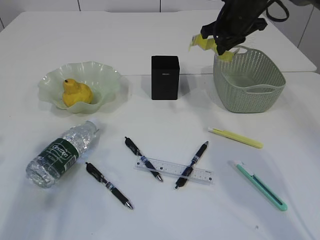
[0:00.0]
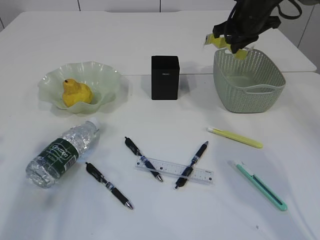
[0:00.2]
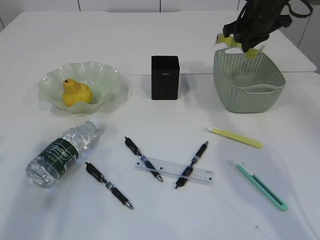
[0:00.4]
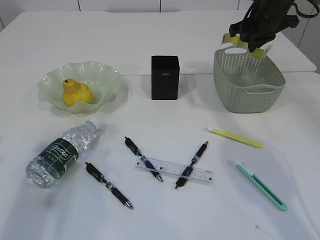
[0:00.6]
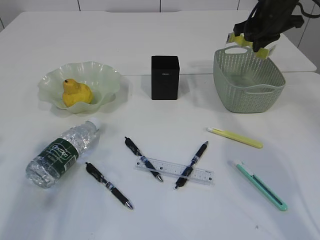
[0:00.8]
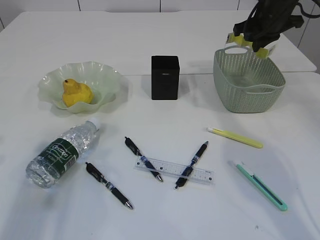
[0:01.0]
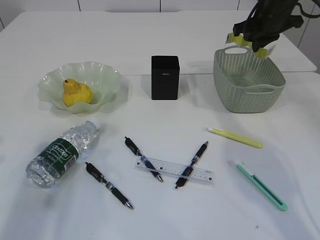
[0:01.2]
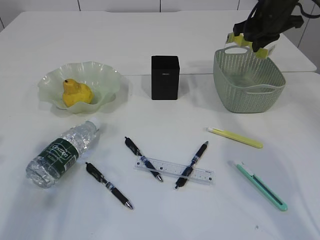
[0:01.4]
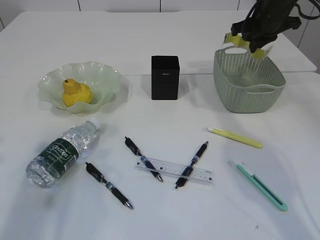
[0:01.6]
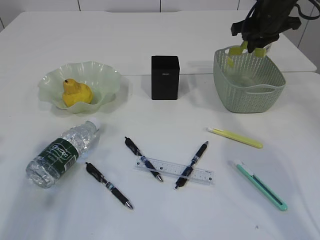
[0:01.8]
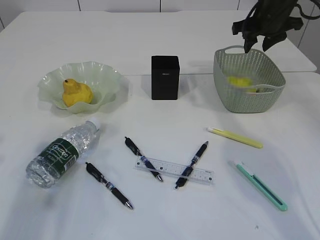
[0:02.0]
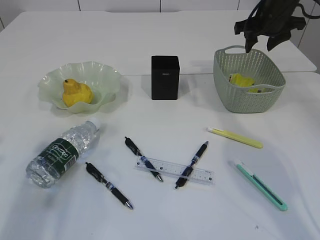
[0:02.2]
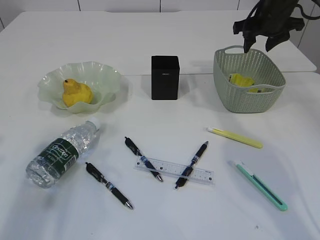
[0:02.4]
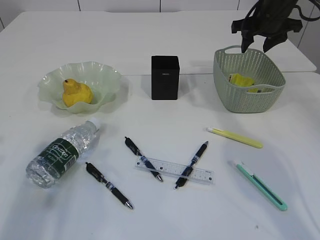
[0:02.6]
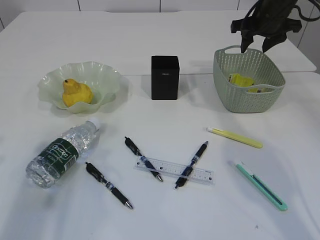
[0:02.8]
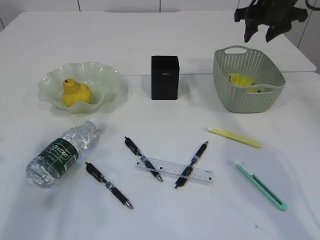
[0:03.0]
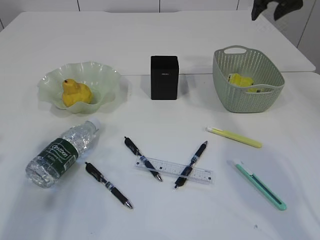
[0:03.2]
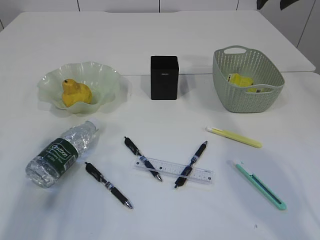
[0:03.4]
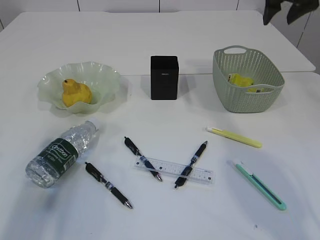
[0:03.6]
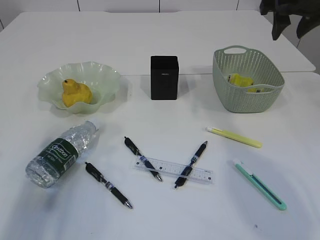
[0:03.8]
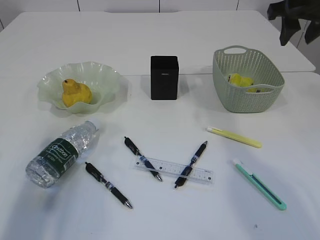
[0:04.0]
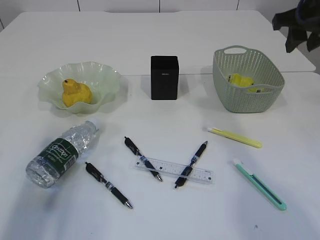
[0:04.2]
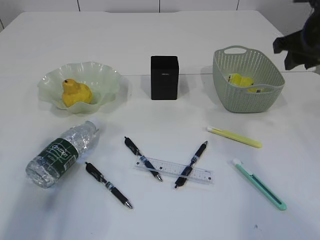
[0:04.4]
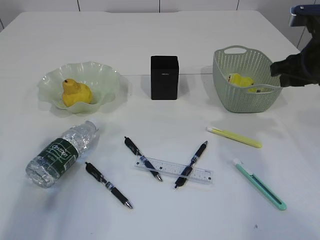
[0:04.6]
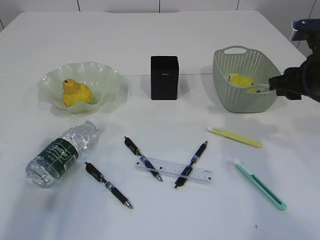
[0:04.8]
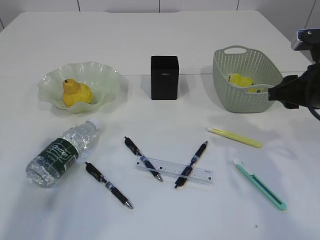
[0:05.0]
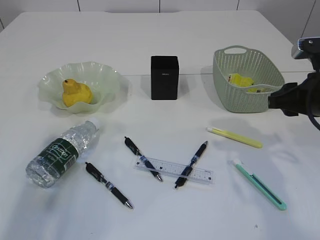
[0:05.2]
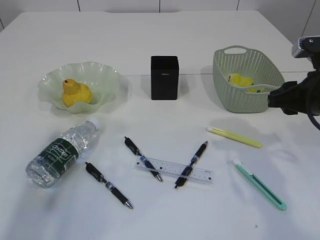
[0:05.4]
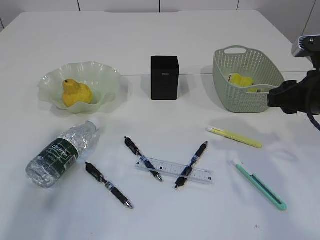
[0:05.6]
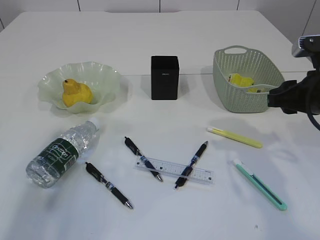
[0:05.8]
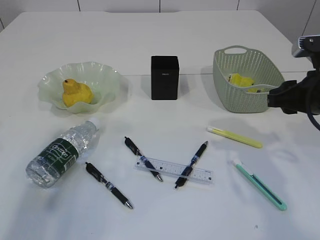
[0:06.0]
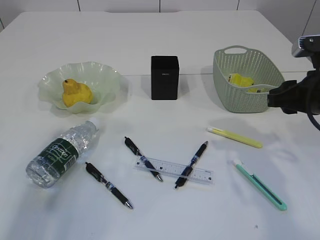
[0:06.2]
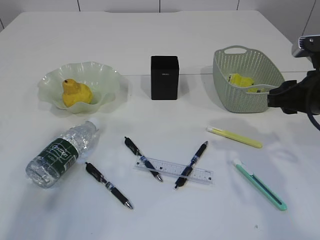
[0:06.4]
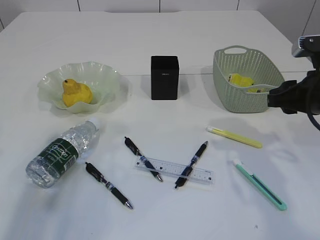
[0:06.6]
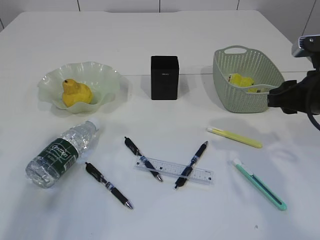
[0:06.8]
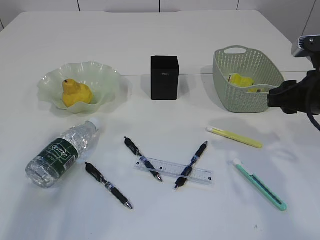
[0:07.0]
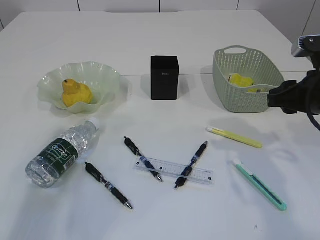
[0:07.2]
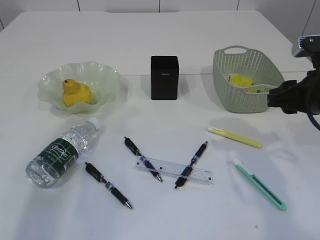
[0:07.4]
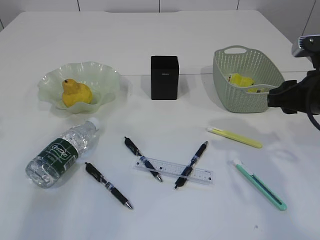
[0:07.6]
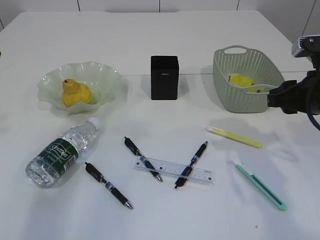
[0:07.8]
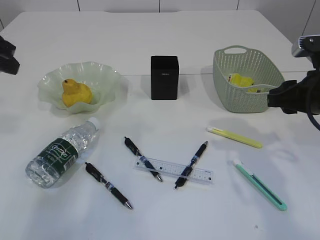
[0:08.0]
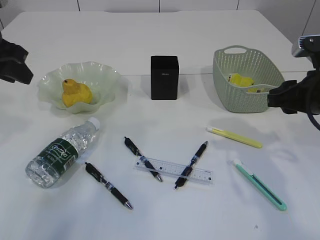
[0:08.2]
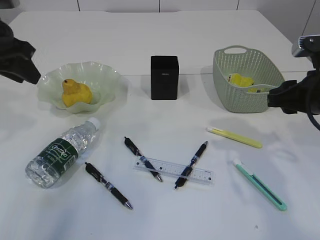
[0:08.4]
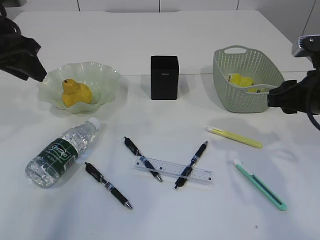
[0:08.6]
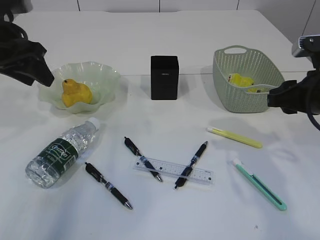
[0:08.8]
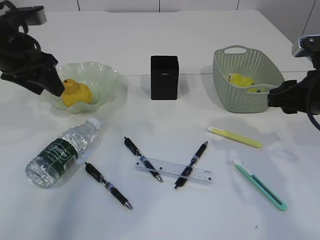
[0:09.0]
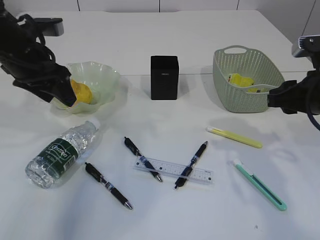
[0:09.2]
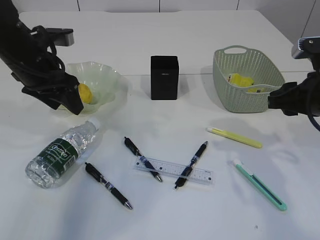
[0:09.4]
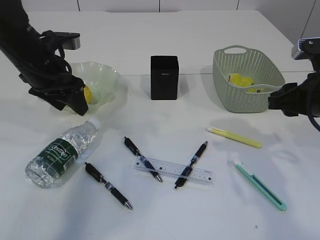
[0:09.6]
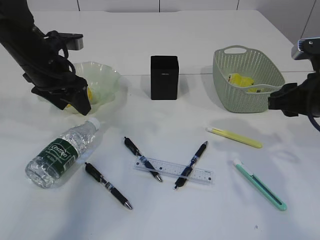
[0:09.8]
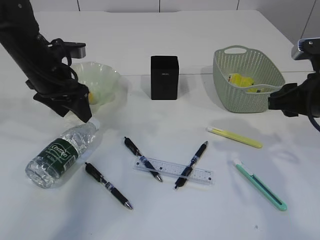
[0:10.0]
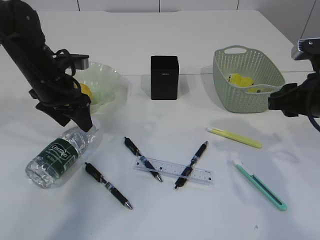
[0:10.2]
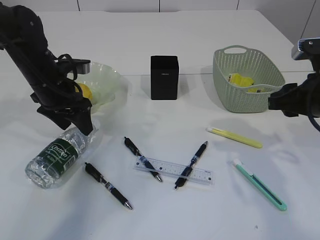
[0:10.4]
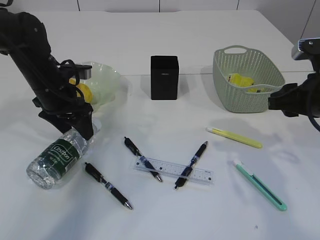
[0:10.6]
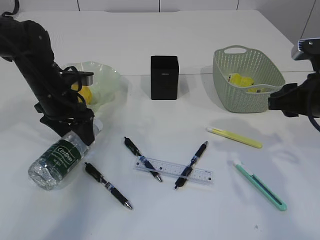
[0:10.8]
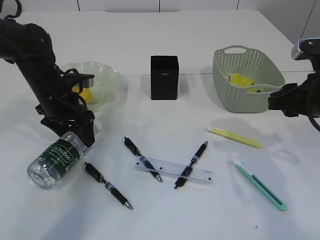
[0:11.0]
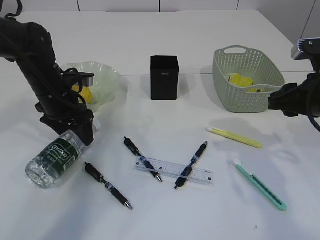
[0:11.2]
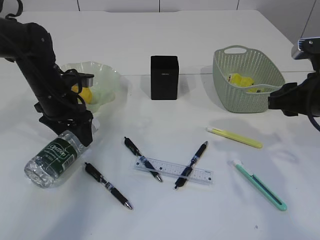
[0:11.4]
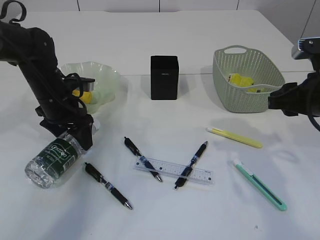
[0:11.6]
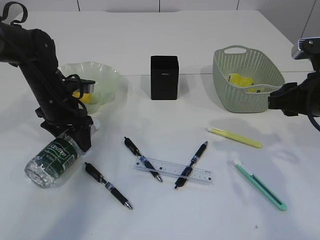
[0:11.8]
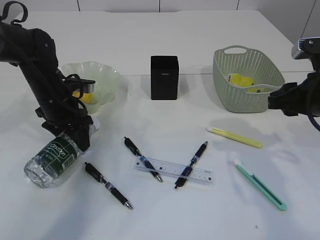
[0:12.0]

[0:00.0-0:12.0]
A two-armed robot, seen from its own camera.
Step, 0:00.0 to 0:03.0: Place the waste paper in the basket.
0:00.0 to 0:01.6: The right gripper travels to the right by about 5 cm.
0:01.6 to 0:03.0: The right gripper opens.
0:03.0 to 0:04.4: The right gripper shifts approximately 15 cm backward.
0:04.4 to 0:06.0: The right gripper heads downward and backward, covering some 10 cm.
0:07.6 to 0:09.0: The left gripper travels forward by about 10 cm, and opens up.
0:09.0 to 0:10.4: The left gripper is displaced downward by approximately 10 cm.
0:10.4 to 0:12.0: The grippers move only a little.

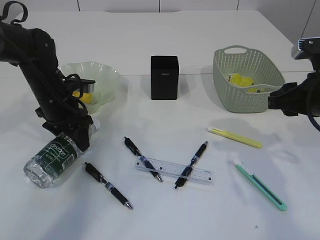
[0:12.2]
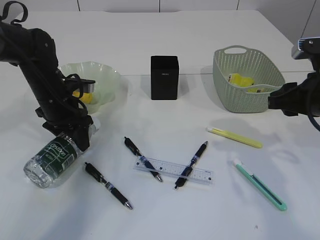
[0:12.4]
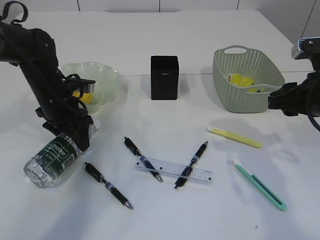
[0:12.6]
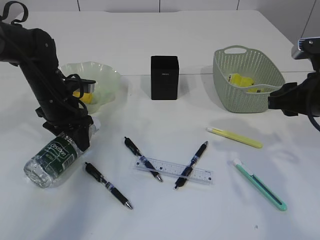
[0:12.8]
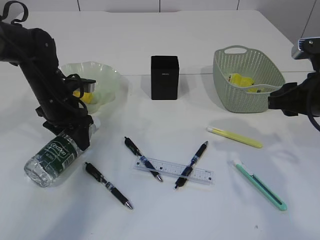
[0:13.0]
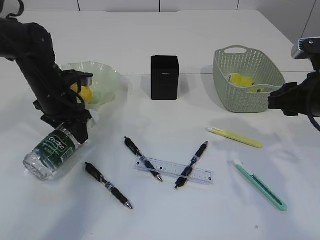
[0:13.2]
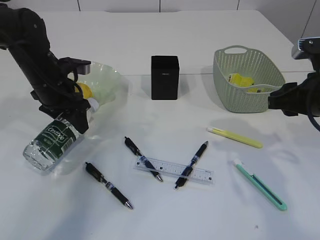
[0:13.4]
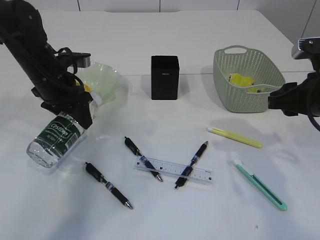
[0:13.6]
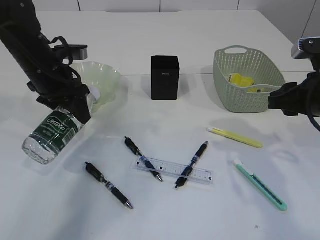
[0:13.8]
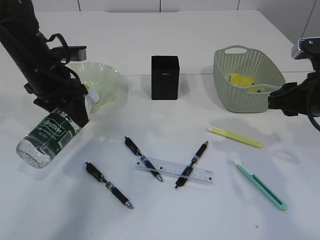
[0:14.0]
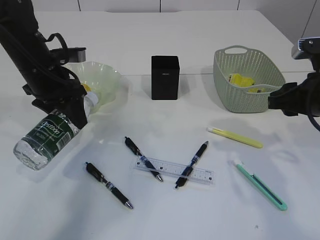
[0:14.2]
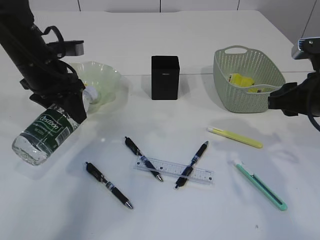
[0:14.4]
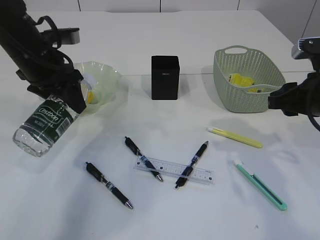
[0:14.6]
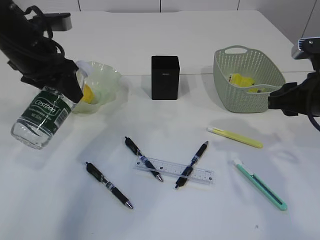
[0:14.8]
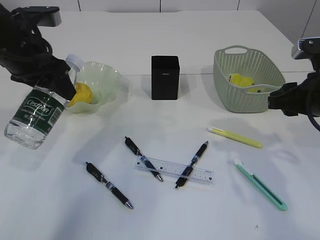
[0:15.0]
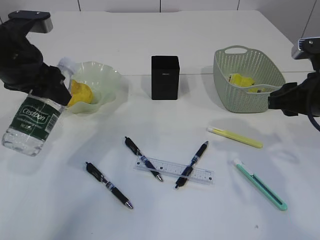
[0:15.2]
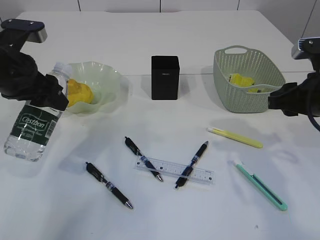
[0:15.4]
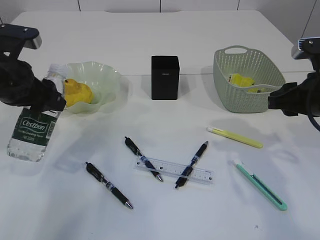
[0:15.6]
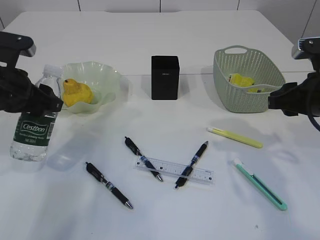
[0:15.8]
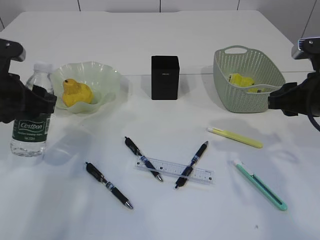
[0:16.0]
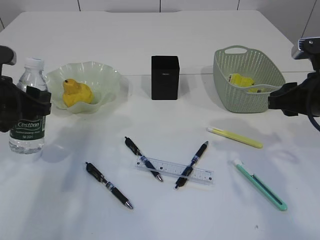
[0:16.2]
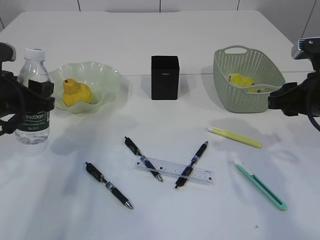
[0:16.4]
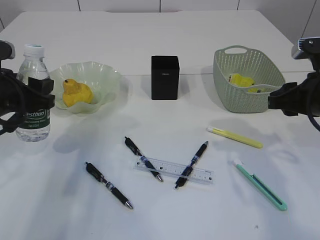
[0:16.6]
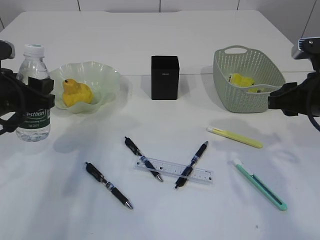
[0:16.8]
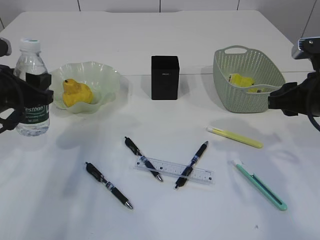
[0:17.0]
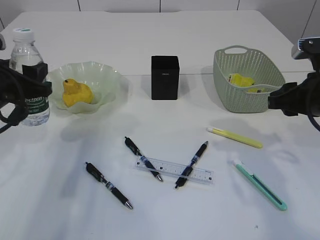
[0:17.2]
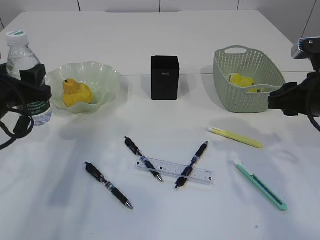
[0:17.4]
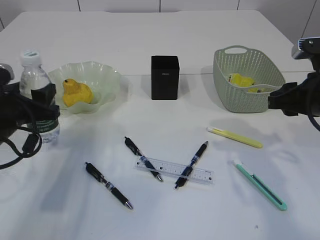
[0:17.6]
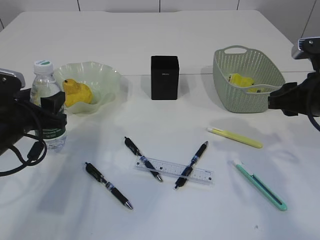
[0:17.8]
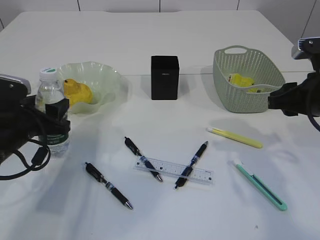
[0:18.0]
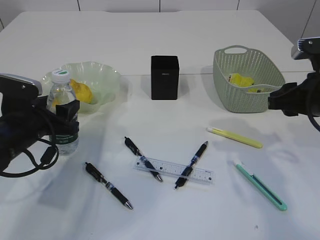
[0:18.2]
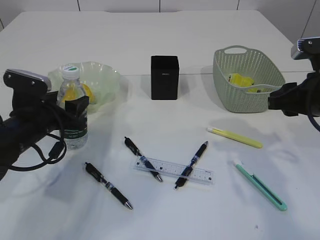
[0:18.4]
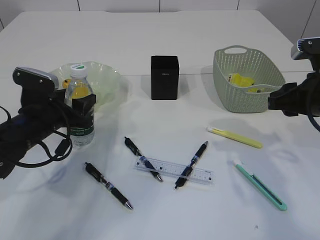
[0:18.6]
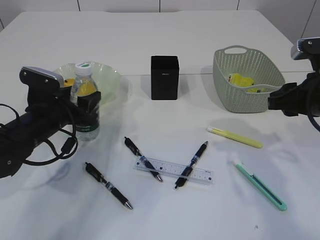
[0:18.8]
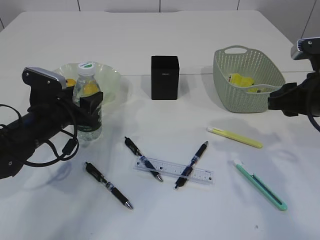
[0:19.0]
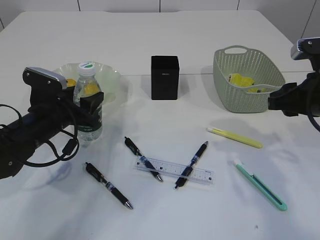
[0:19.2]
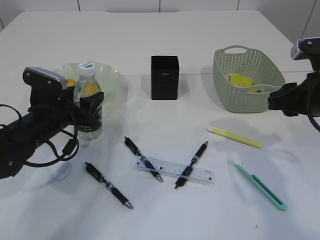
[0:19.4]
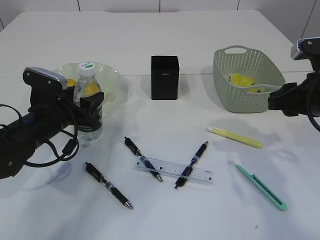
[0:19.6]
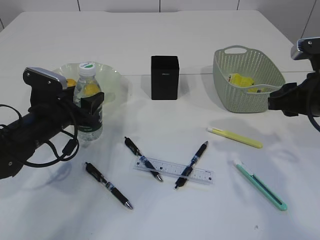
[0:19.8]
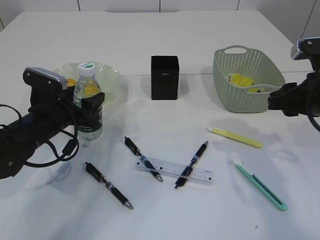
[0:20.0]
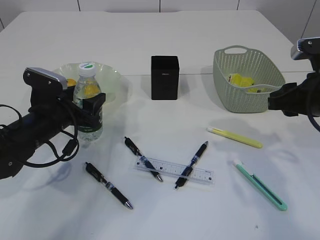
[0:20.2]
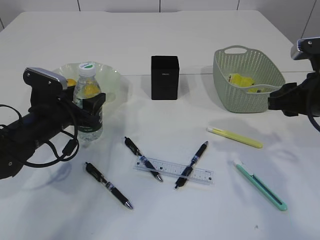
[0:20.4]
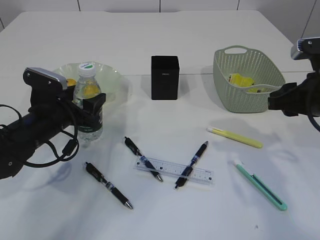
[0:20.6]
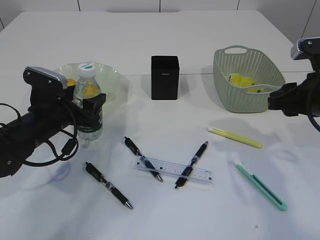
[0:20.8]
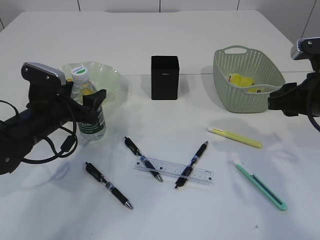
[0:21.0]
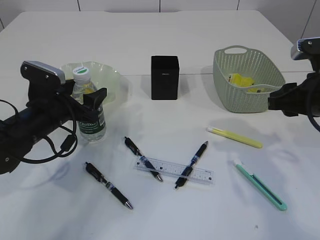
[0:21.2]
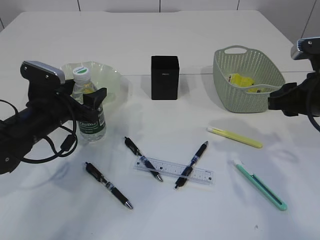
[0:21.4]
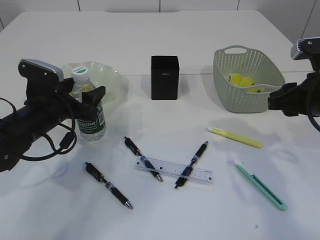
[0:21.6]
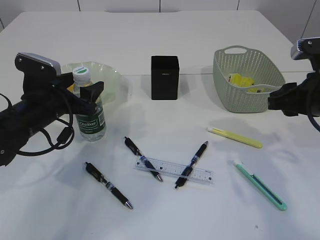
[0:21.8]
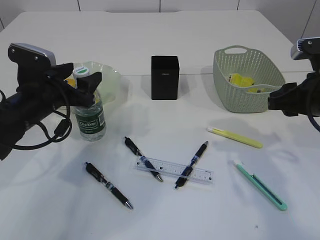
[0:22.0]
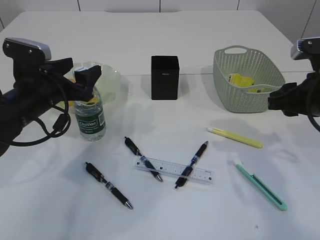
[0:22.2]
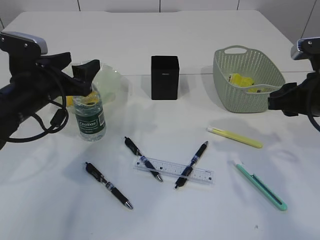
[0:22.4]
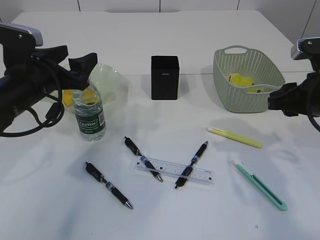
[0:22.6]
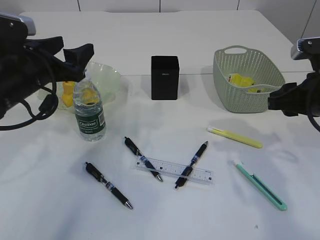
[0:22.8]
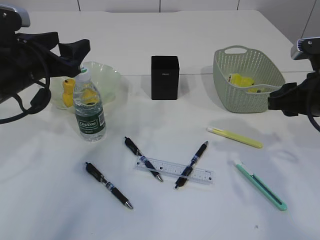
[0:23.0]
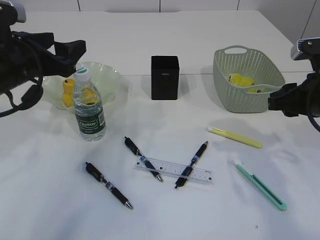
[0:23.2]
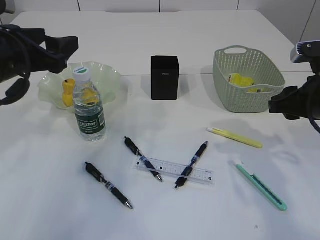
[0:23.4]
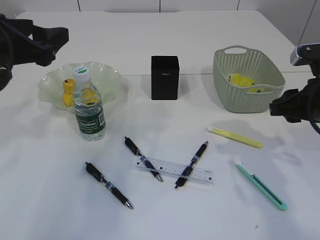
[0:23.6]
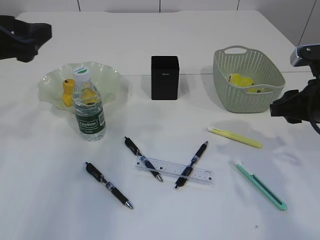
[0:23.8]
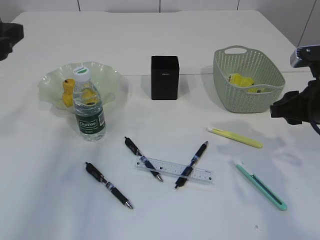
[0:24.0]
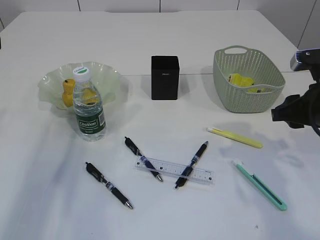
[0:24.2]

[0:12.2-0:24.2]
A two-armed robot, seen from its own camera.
Step, 0:13.6 to 0:22.4: Place the bottle.
0:12.2 to 0:13.8: The left gripper travels upward by some 5 cm.
0:13.8 to 0:15.2: The left gripper is displaced backward and upward by about 10 cm.
0:15.2 to 0:16.6: The left gripper moves downward, approximately 5 cm.
0:16.6 to 0:18.2: The left gripper is displaced downward by some 10 cm.
0:18.2 to 0:19.8: The grippers stay close to where they were, moving slightly.
0:19.8 to 0:21.2: Neither gripper changes place.
0:21.2 to 0:22.6: The left gripper shifts about 5 cm upward.
0:22.6 to 0:24.2: The left gripper moves to the left, upward and backward, approximately 15 cm.
